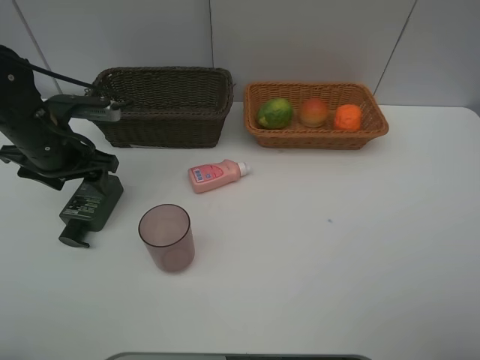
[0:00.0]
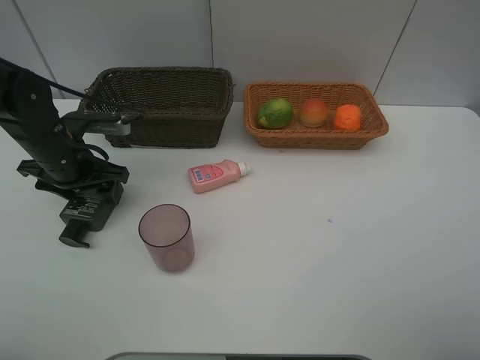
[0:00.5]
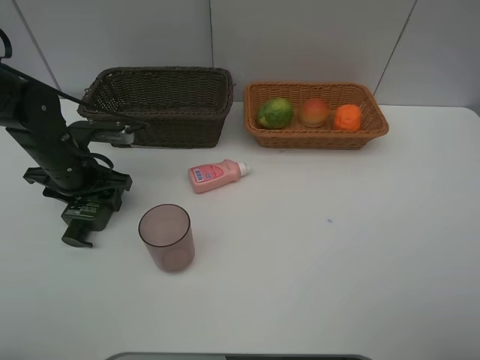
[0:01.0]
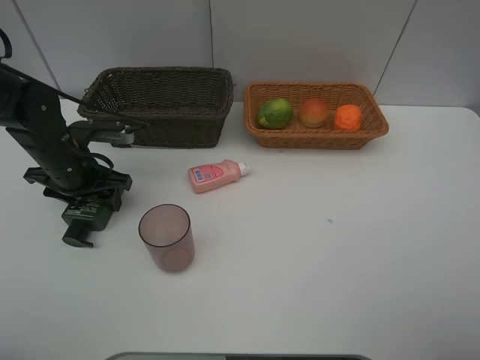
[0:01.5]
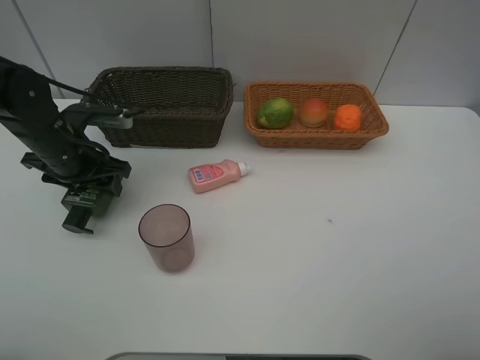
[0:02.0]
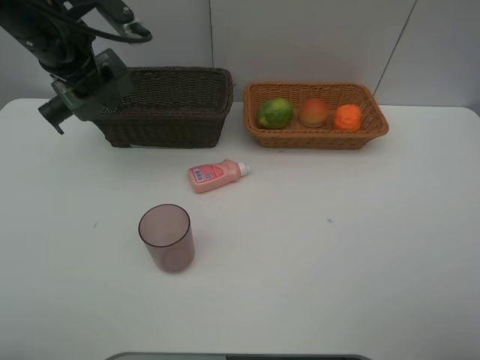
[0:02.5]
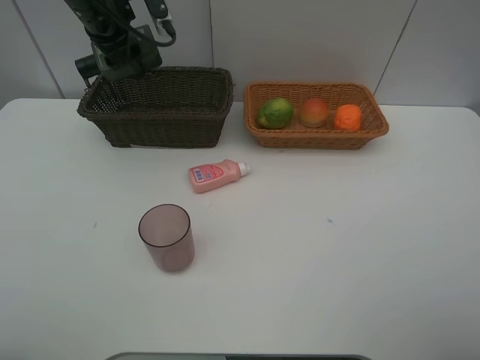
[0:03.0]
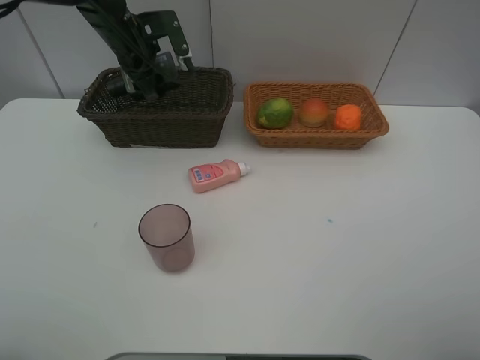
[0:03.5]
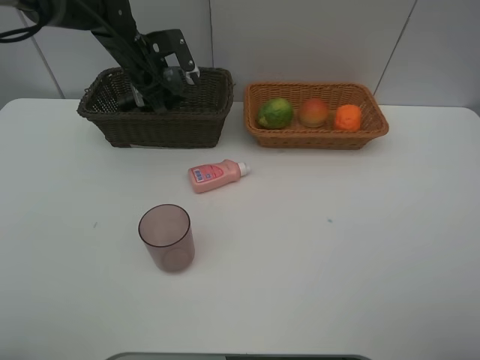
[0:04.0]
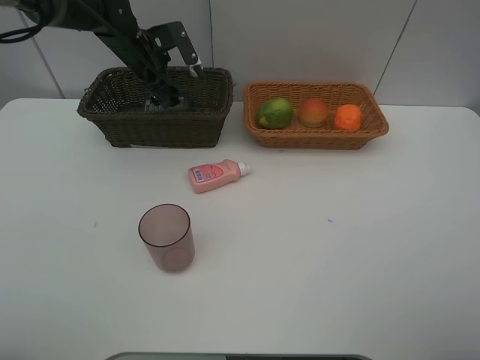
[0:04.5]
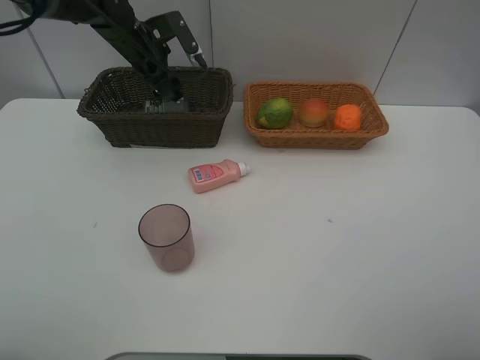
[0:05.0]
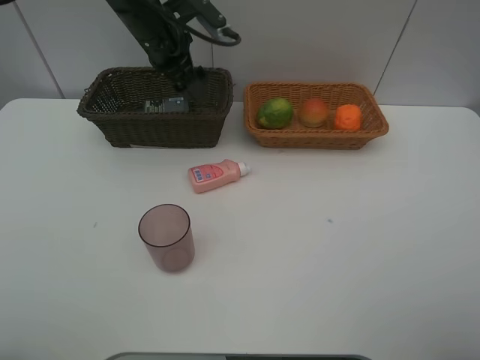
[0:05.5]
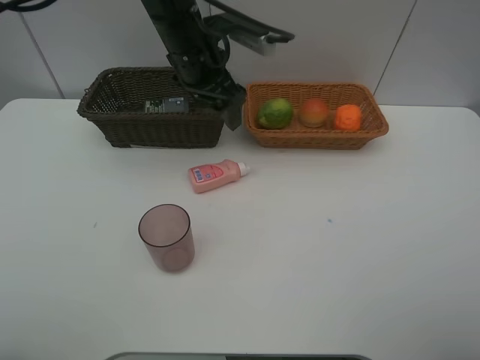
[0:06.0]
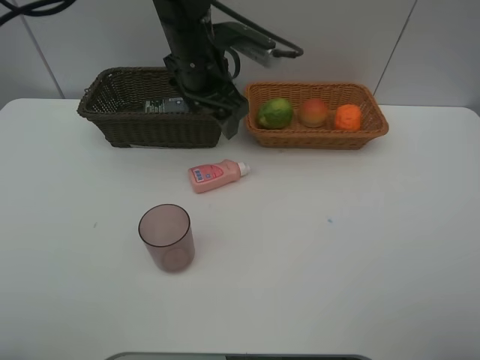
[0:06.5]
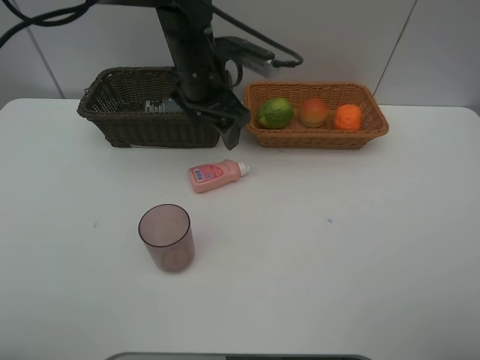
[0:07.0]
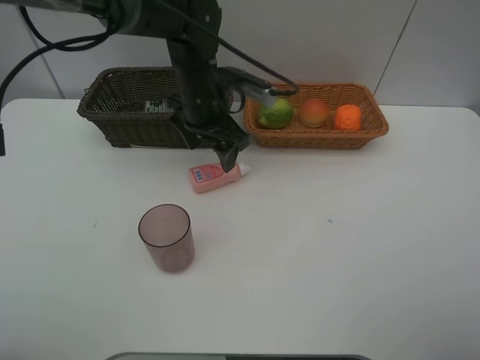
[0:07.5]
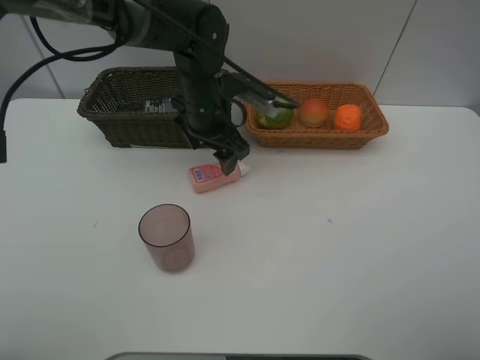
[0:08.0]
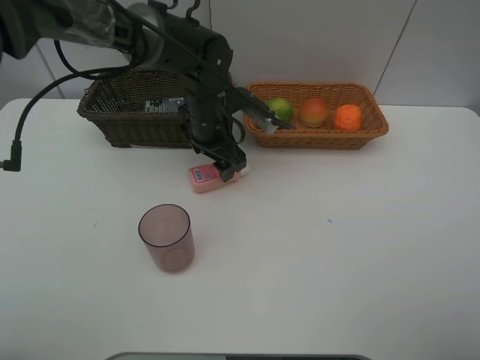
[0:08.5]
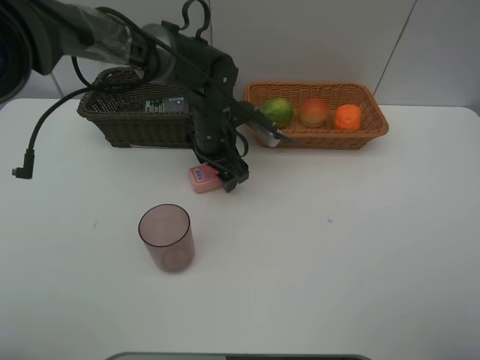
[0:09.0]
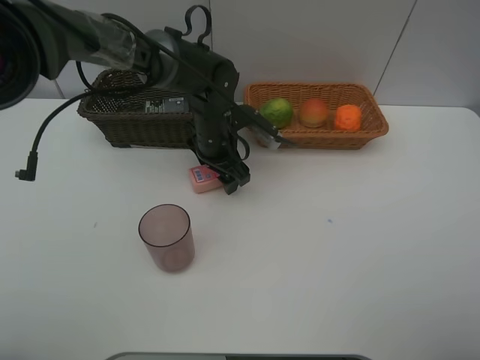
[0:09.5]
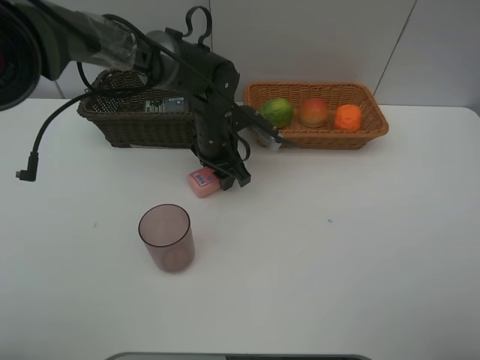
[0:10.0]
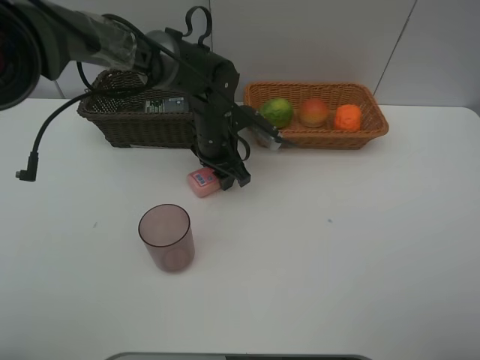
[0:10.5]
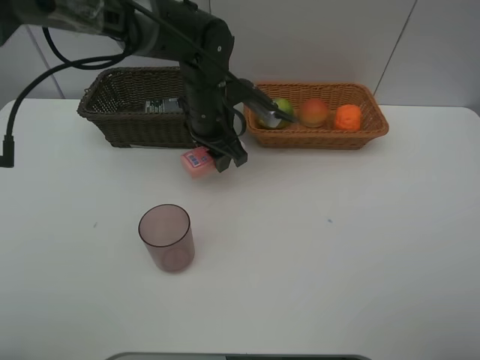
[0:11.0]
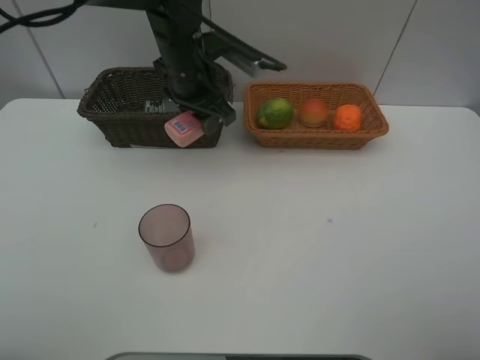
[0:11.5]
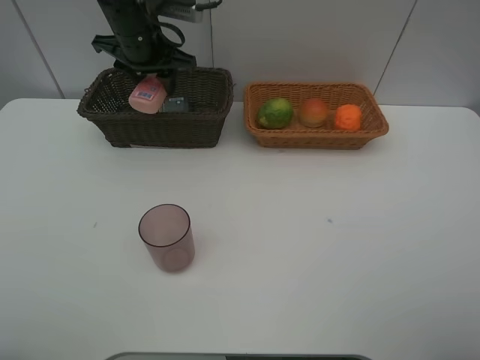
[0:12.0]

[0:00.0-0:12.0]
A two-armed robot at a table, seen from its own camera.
Task of the whole recording: place multiple objects separately in different baskets.
0.0 to 2.0 s: There are only small adjustments of the grippers.
2.0 to 4.0 s: The left gripper heads forward and to the right, covering roughly 20 cm.
4.0 to 6.0 s: The left gripper moves to the right, backward and upward, about 15 cm.
6.0 to 8.0 s: The left gripper is displaced downward by some 5 cm.
8.0 to 10.0 s: The left gripper moves downward, some 5 cm, and closes.
10.0 to 12.0 s: The left gripper goes some 20 cm upward, to the left and forward.

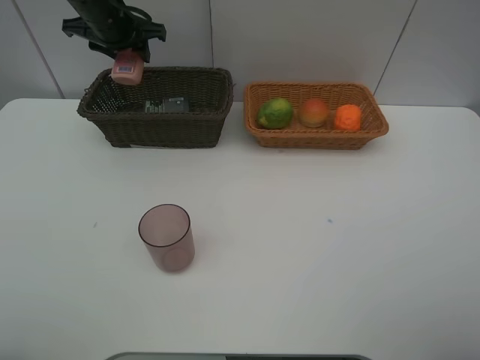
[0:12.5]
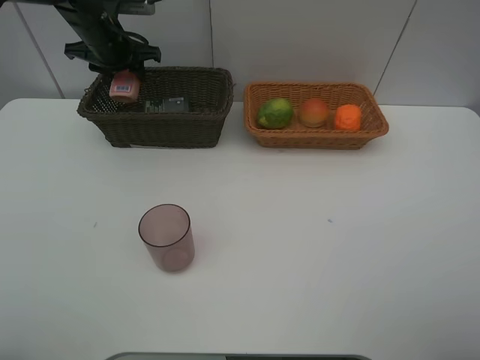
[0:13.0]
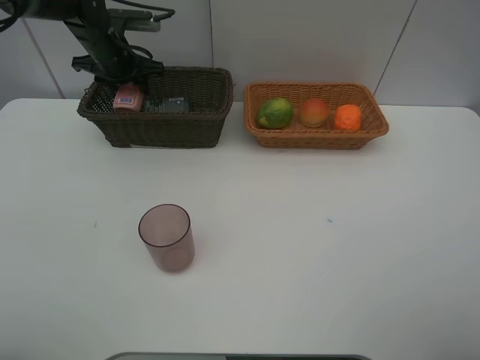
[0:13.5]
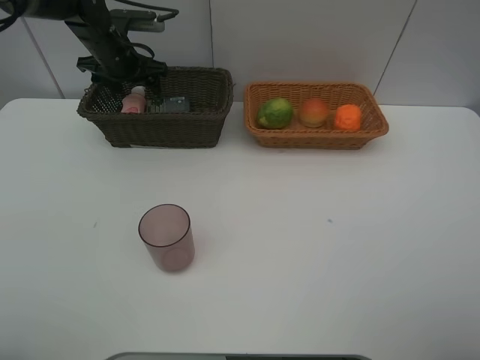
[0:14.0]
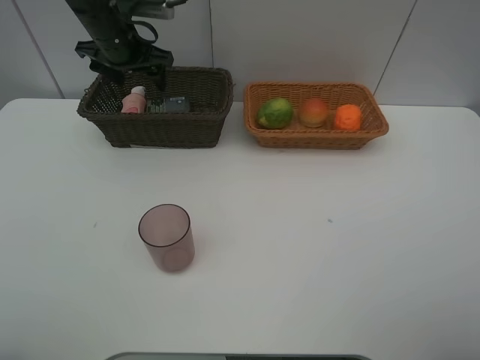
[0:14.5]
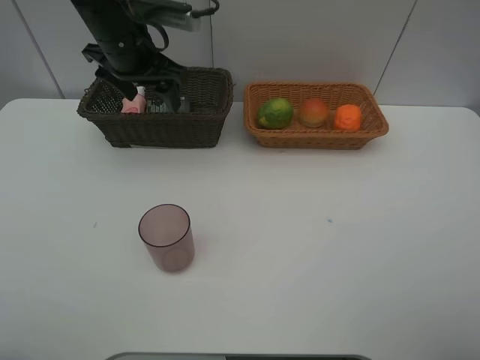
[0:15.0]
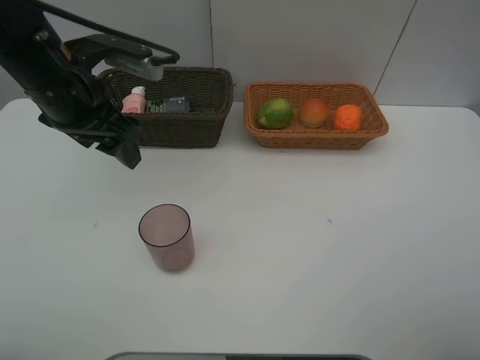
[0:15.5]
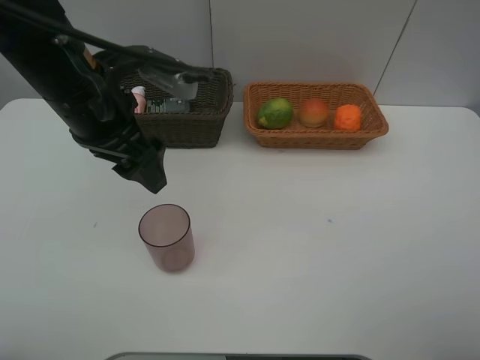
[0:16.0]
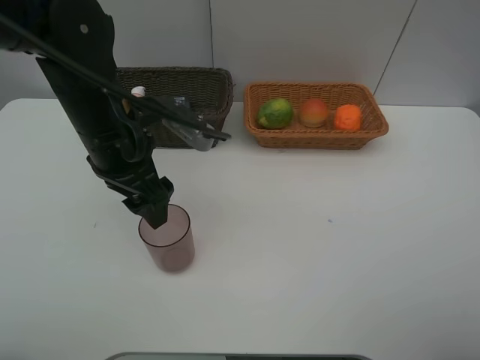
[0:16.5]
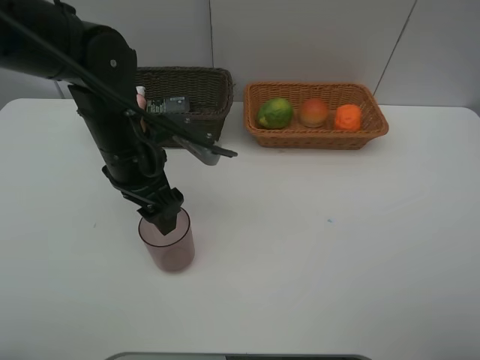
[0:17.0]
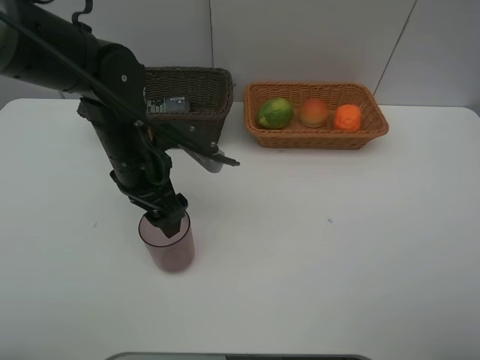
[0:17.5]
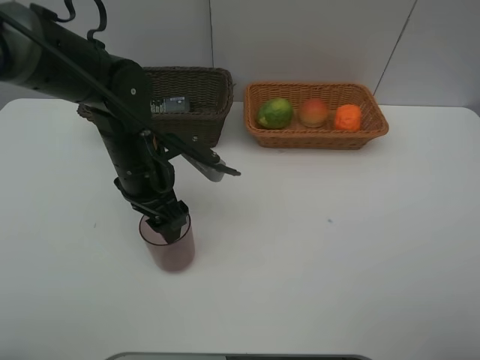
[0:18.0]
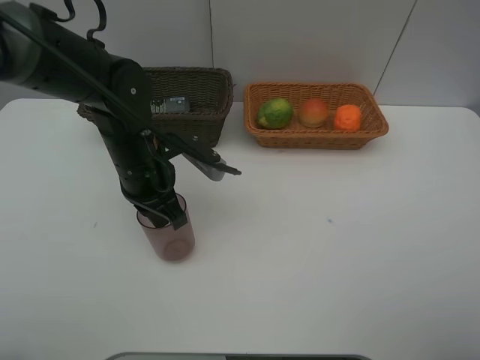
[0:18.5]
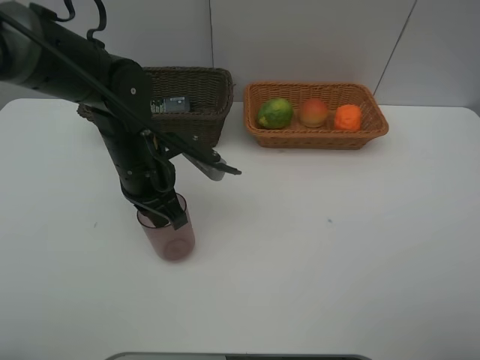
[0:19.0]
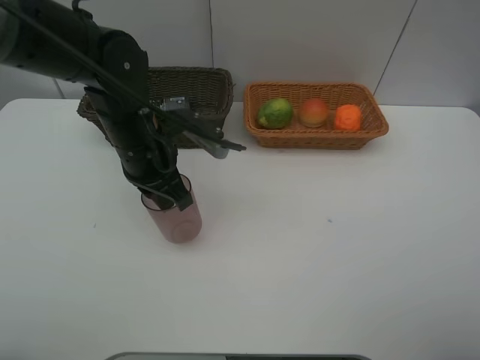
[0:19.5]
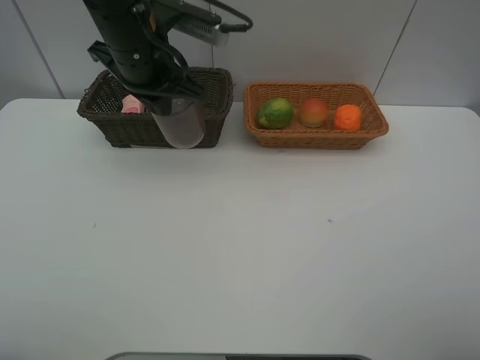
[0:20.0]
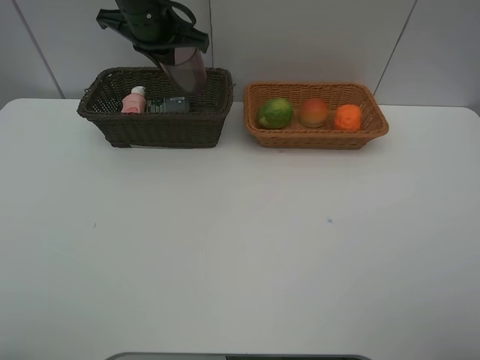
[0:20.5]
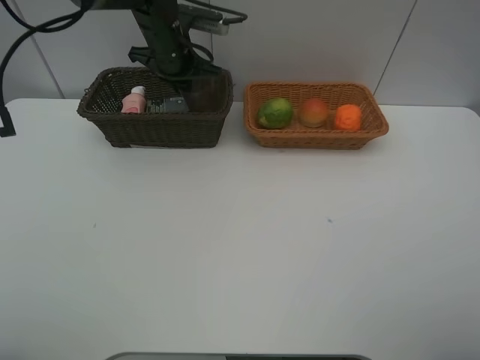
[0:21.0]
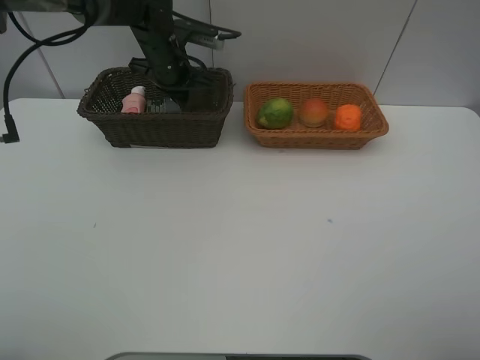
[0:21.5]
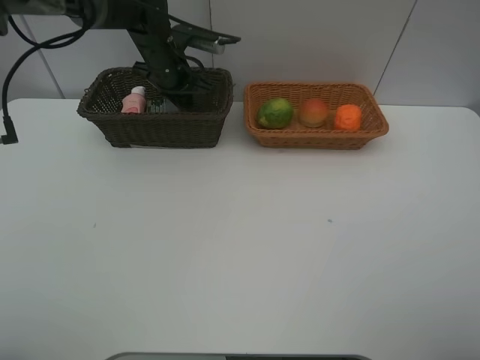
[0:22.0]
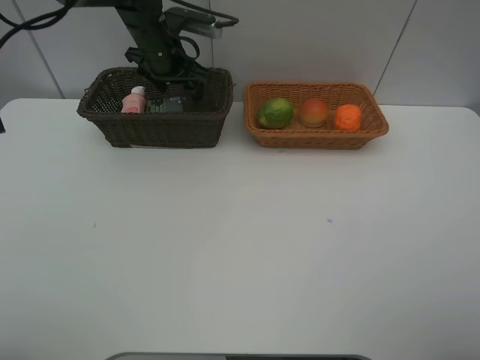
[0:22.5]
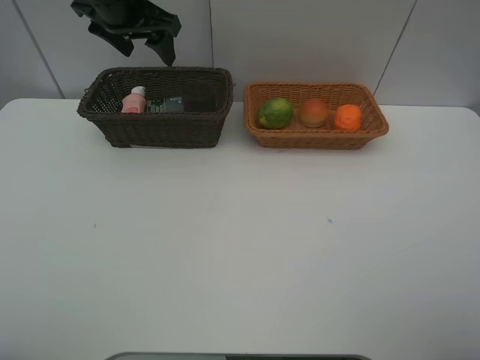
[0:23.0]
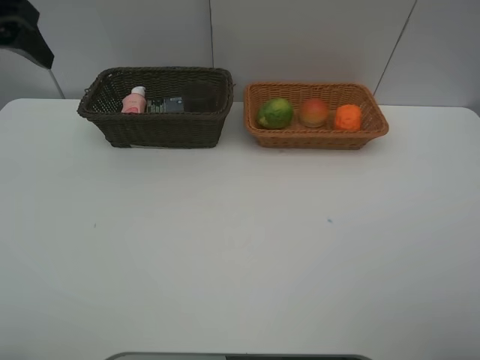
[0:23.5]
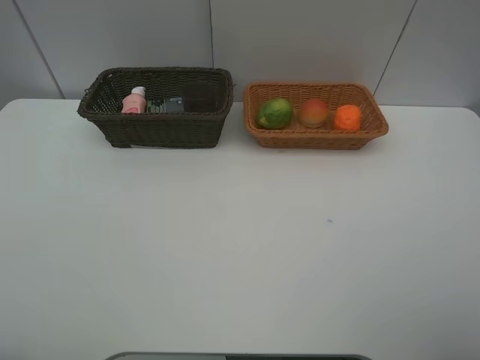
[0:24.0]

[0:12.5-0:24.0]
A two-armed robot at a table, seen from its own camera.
Task of the whole recording: place multiple objects separately in different baskets.
12.5 to 14.5 s: The left gripper opens its fingers.
14.5 to 16.5 s: The left gripper moves backward, about 20 cm.
16.5 to 18.5 s: The left gripper goes some 5 cm downward, and closes.
18.5 to 20.0 s: The left gripper heads upward and forward, covering some 15 cm.
20.0 to 22.0 s: The left gripper moves forward and downward, some 20 cm.
22.0 to 24.0 s: The left gripper shifts about 50 cm backward, upward and to the left, and opens its fingers.

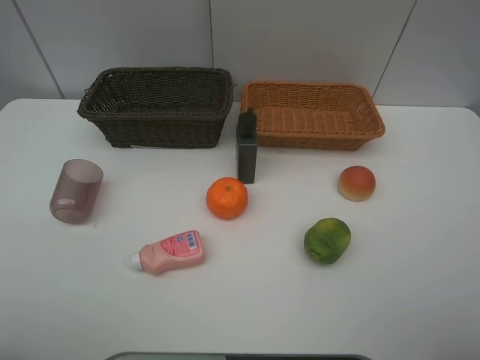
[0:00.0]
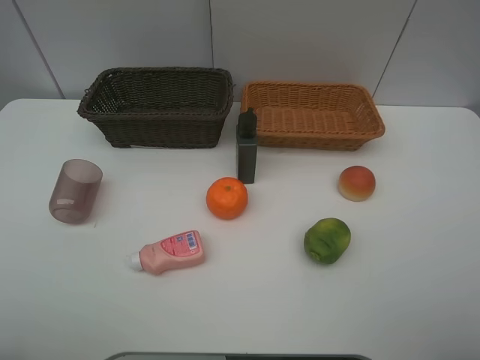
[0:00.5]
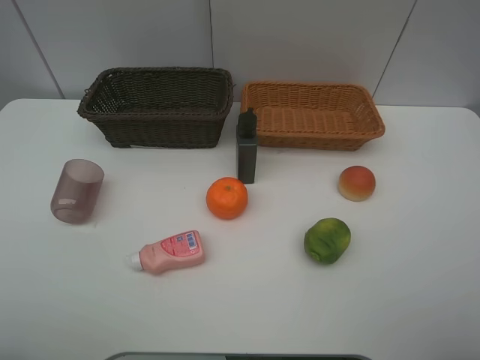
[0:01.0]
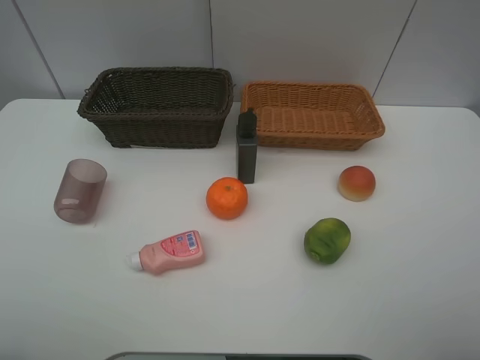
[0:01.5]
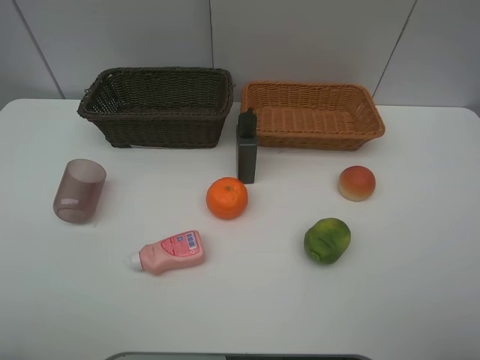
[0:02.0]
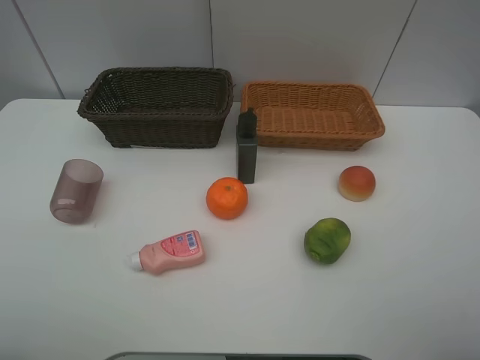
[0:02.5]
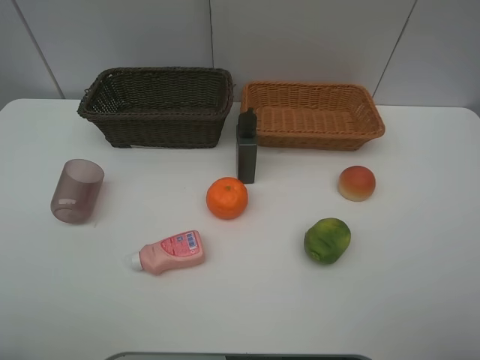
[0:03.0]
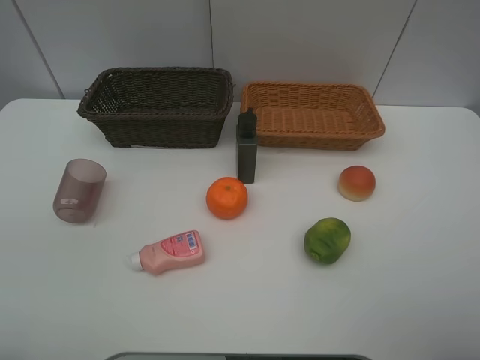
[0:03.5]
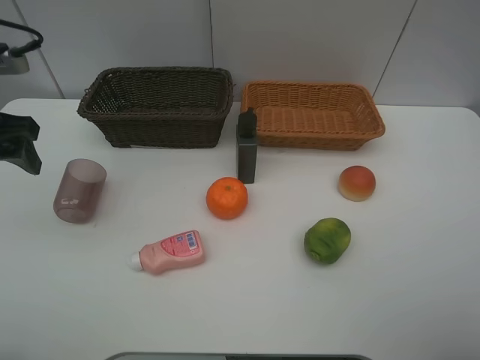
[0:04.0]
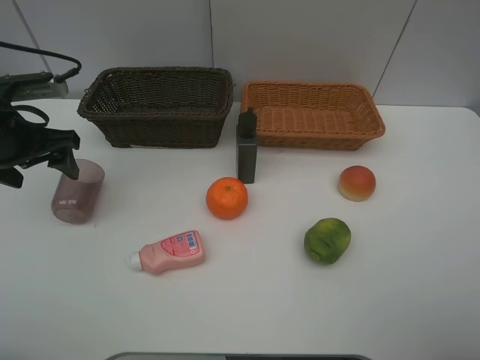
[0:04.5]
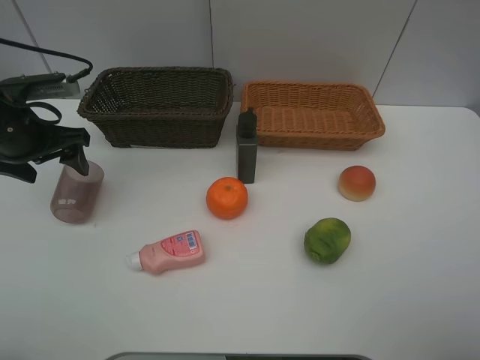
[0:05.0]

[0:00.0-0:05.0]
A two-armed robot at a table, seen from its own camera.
Task of the whole recording: place multiple objects separately in different baskets.
0.0 to 2.5 s: Neither gripper changes place.
2.5 to 5.0 s: The left gripper heads forward, covering approximately 30 cm.
